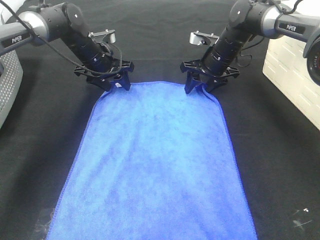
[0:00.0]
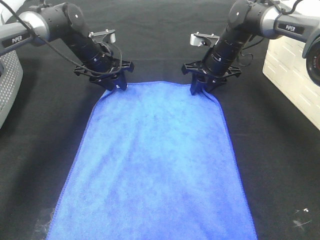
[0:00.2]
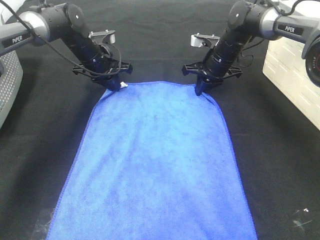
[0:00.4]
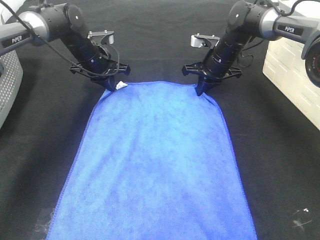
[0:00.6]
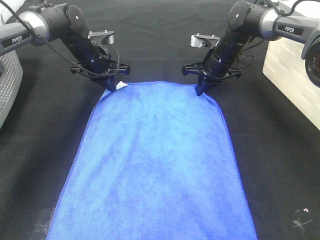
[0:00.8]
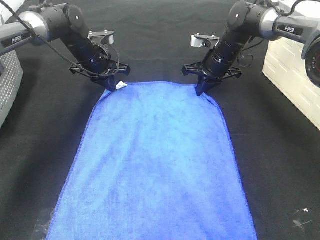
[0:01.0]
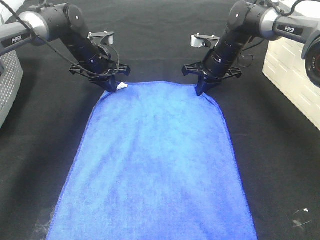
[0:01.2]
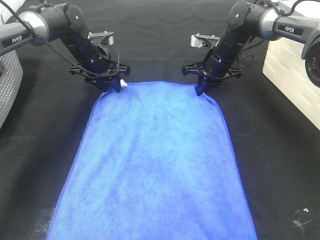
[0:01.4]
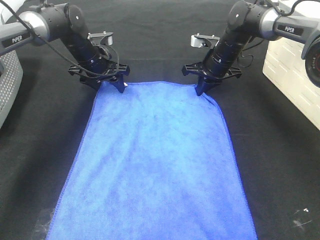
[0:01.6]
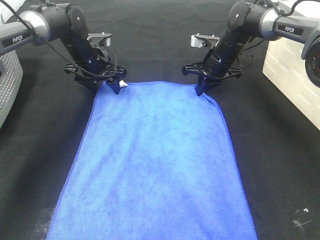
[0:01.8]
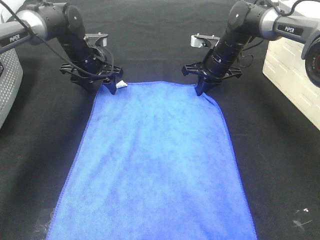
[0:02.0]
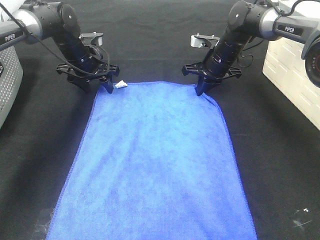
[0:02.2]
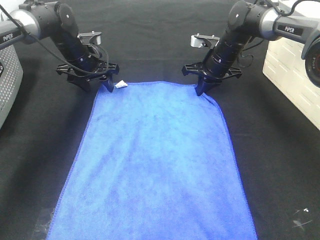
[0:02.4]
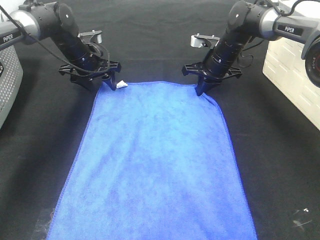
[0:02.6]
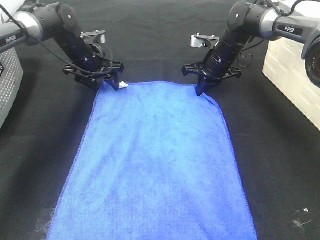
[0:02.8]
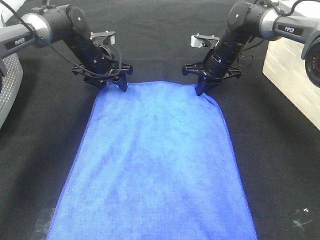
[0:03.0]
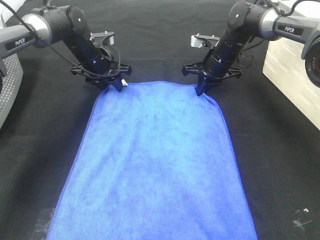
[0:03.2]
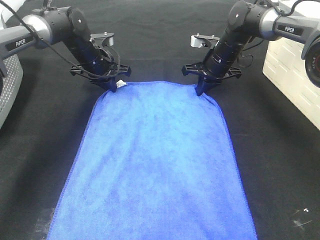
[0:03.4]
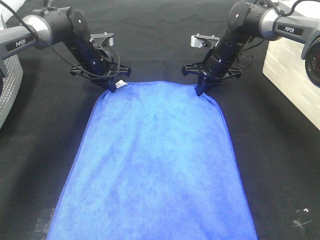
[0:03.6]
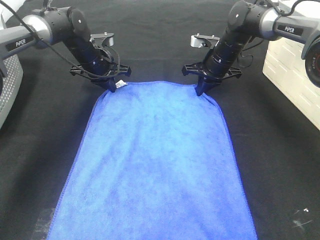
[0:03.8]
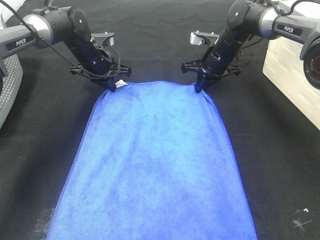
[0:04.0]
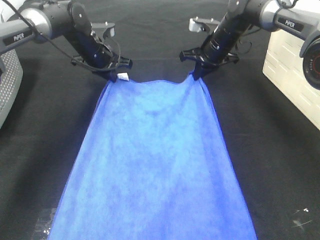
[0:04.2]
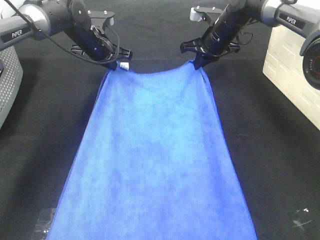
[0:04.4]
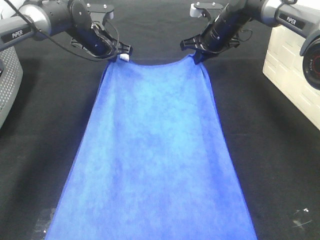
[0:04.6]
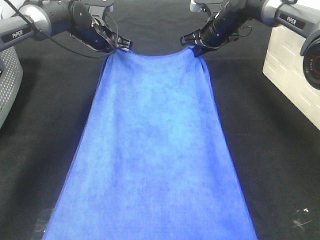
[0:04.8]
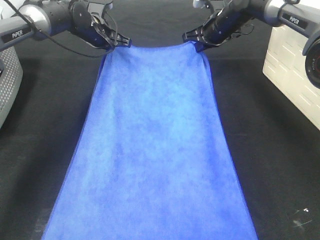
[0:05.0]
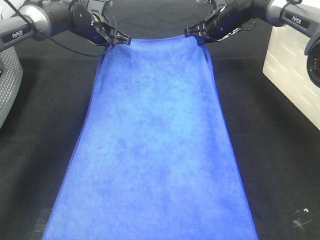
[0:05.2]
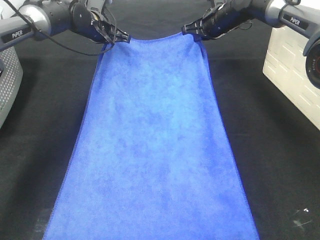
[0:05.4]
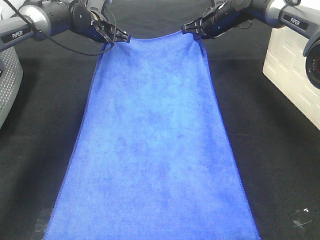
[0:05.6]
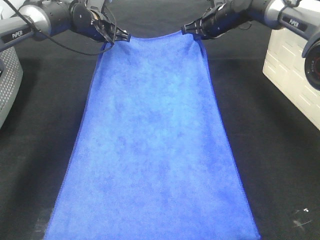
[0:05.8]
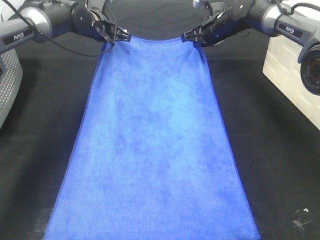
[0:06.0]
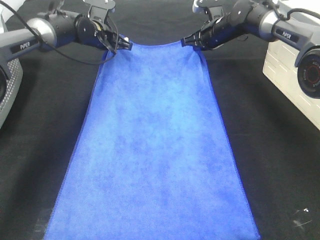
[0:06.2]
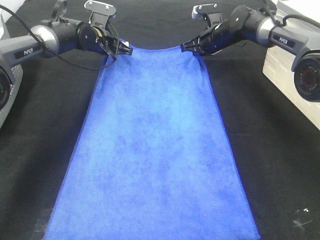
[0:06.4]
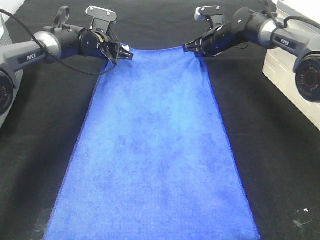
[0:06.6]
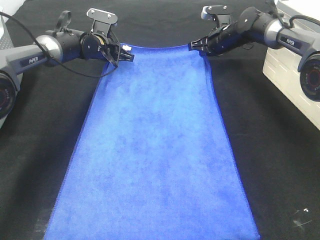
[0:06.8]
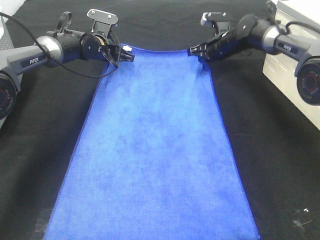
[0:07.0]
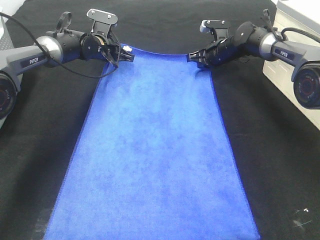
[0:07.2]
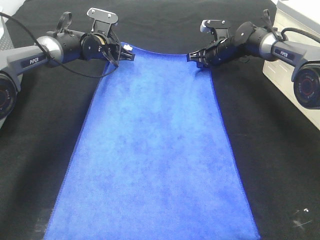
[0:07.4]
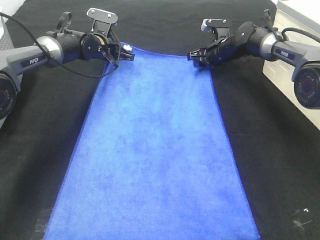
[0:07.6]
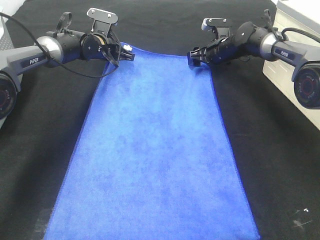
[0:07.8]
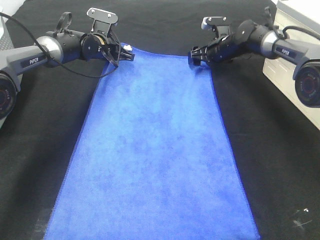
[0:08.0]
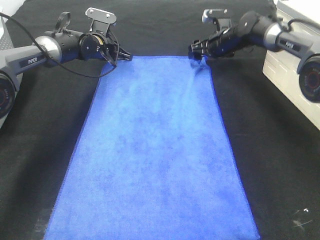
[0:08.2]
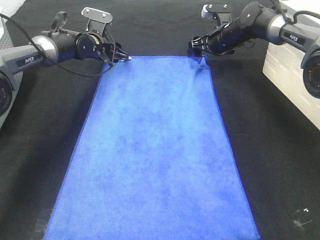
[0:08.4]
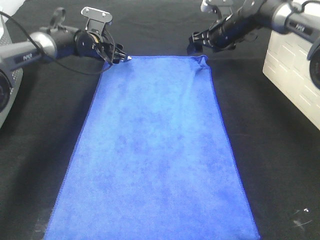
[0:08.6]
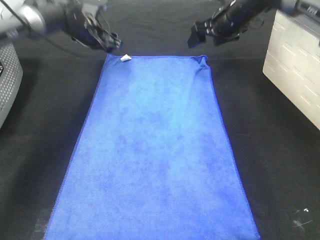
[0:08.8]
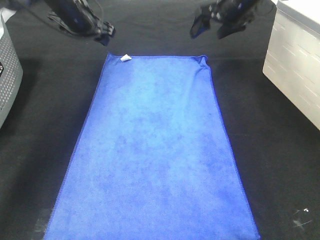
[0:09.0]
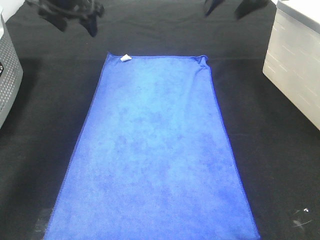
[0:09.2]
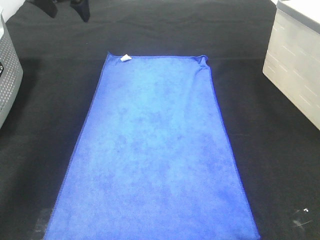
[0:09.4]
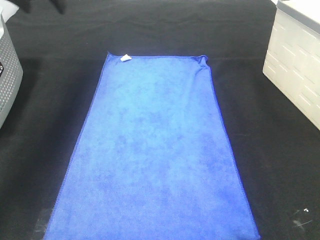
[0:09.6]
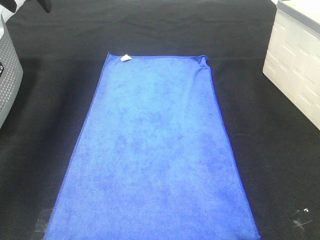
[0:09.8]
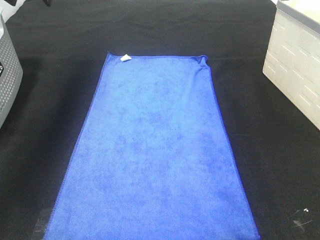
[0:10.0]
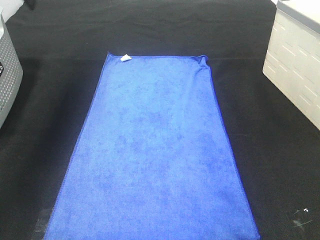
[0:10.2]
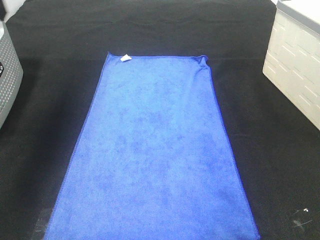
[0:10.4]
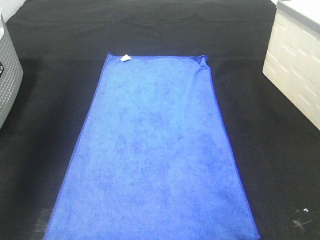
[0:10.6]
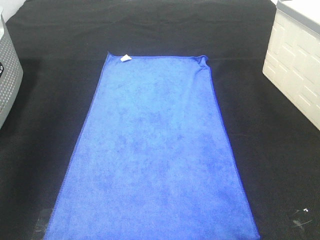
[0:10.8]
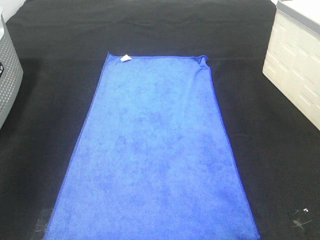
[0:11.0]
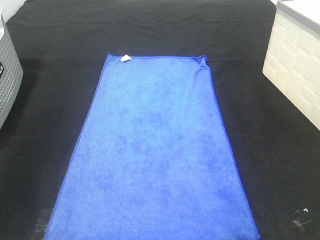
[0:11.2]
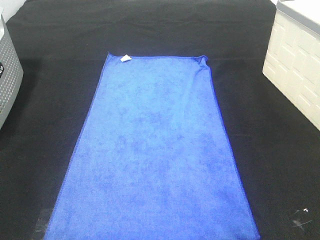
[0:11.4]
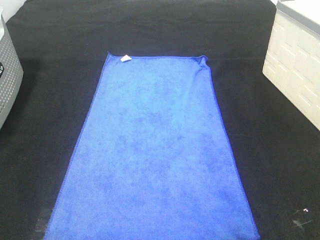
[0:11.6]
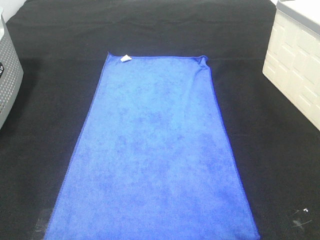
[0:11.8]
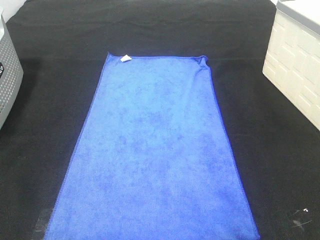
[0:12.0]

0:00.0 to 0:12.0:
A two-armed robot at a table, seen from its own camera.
Task of the whole recording: Remove the towel and place it.
0:00.0 to 0:01.6: The left gripper closes, then reopens; the right gripper closes its fingers.
0:01.6 to 0:03.0: The grippers move only a little.
0:03.0 to 0:04.4: The left gripper closes. The right gripper ends up roughly 5 cm from where it was.
0:06.0 to 0:07.6: The grippers both shift downward by about 5 cm. The right gripper opens up.
0:07.6 to 0:09.0: The two grippers go some 15 cm upward. The right gripper opens its fingers, while the left gripper opens up.
0:09.0 to 0:10.4: The right gripper heads backward, upward and to the right, covering some 35 cm; the left gripper goes approximately 25 cm backward, upward and to the left.
0:10.4 to 0:12.0: The left gripper shifts roughly 30 cm backward; the right gripper is displaced backward and downward by roughly 30 cm.

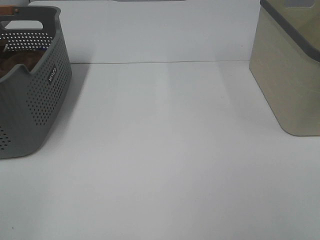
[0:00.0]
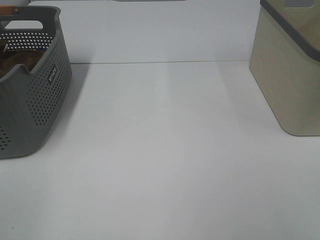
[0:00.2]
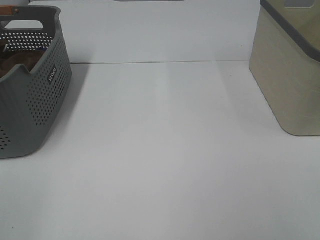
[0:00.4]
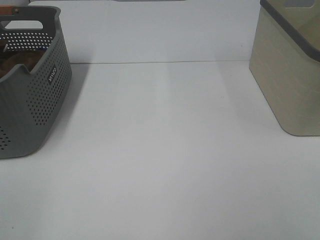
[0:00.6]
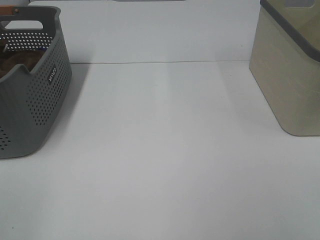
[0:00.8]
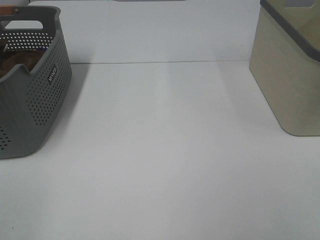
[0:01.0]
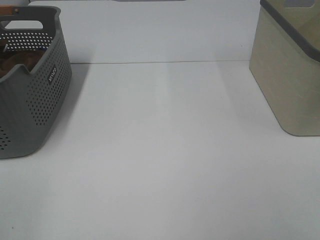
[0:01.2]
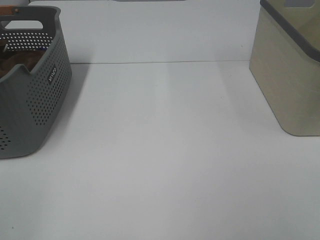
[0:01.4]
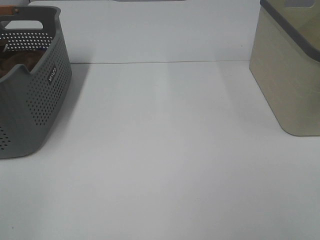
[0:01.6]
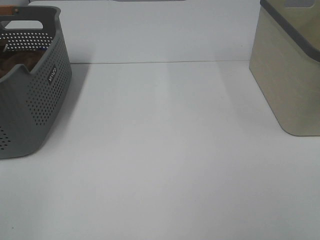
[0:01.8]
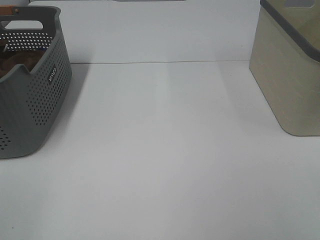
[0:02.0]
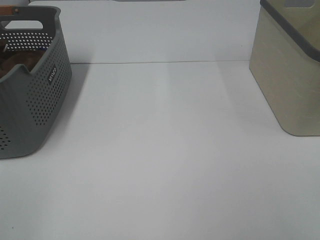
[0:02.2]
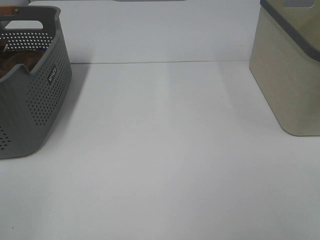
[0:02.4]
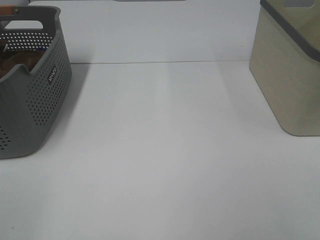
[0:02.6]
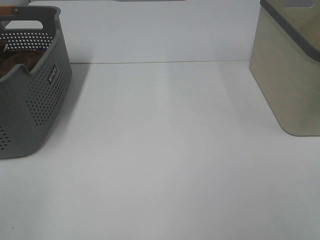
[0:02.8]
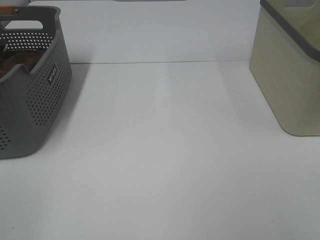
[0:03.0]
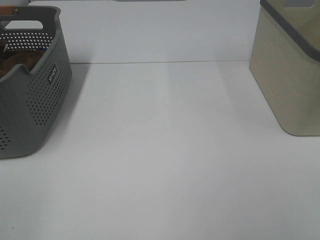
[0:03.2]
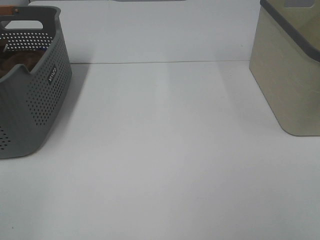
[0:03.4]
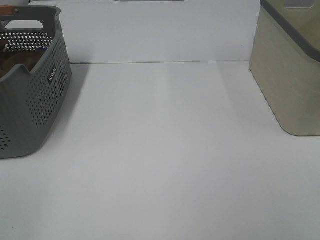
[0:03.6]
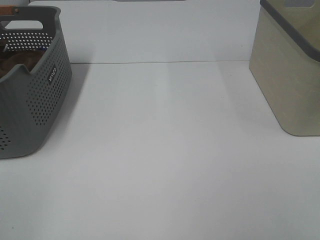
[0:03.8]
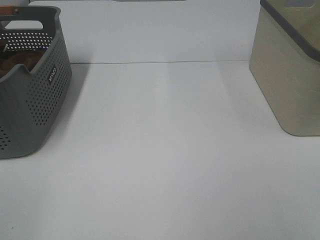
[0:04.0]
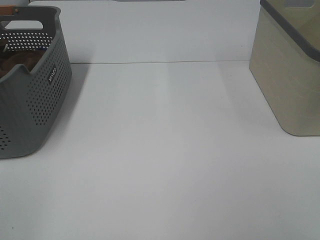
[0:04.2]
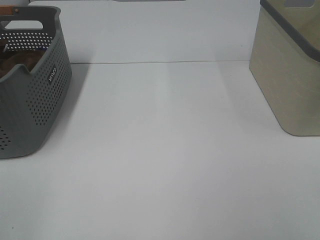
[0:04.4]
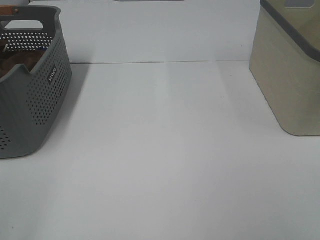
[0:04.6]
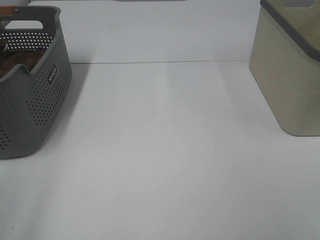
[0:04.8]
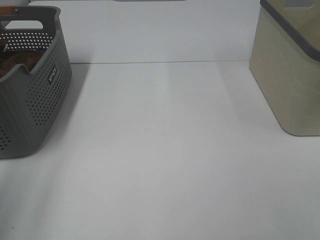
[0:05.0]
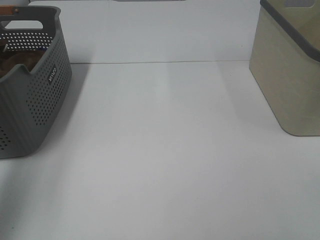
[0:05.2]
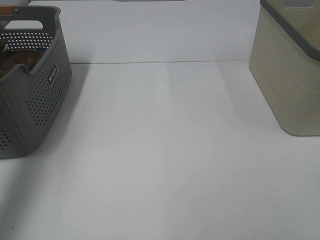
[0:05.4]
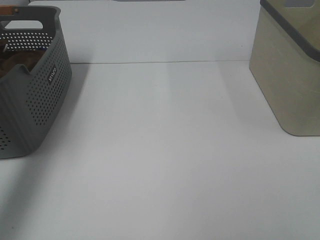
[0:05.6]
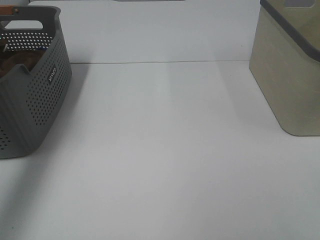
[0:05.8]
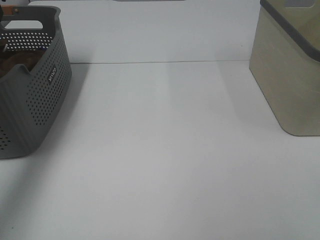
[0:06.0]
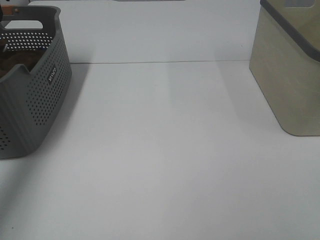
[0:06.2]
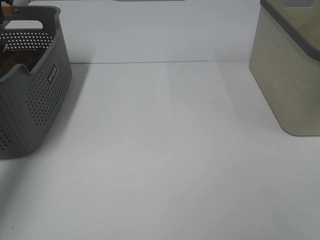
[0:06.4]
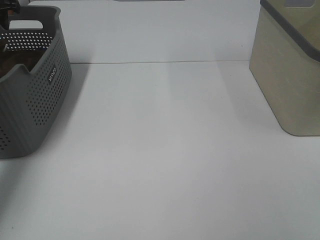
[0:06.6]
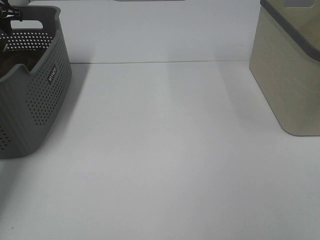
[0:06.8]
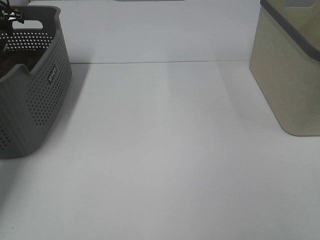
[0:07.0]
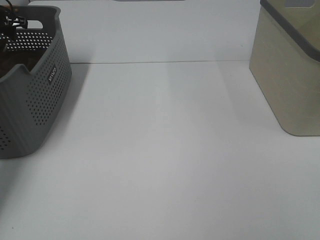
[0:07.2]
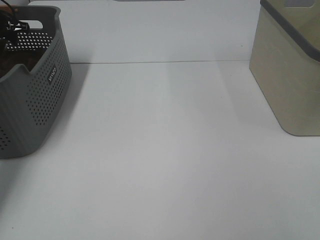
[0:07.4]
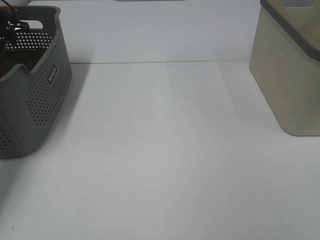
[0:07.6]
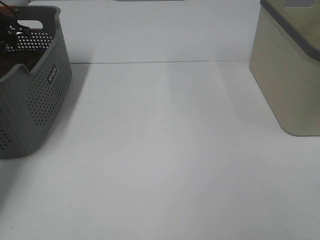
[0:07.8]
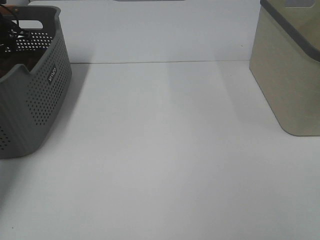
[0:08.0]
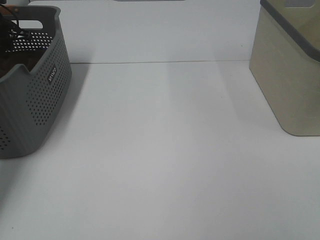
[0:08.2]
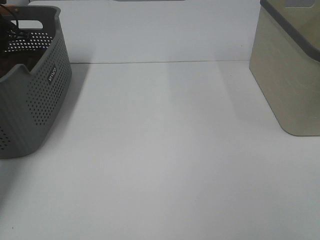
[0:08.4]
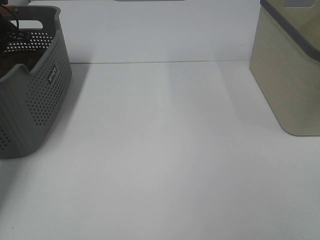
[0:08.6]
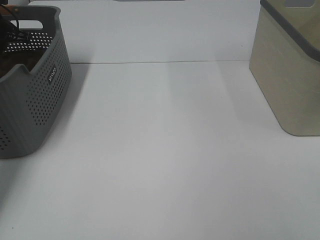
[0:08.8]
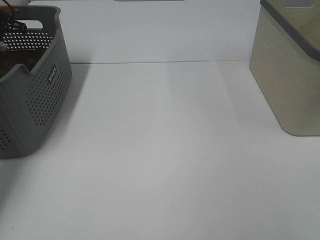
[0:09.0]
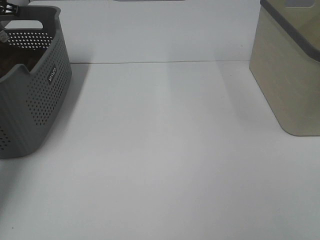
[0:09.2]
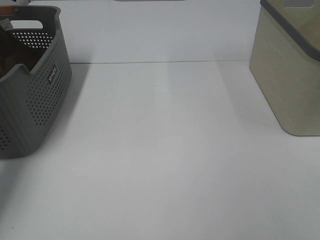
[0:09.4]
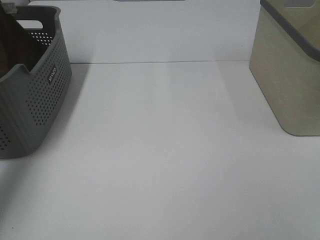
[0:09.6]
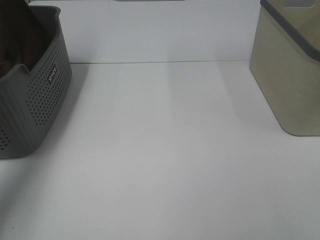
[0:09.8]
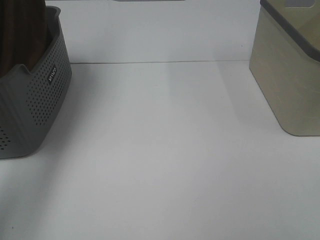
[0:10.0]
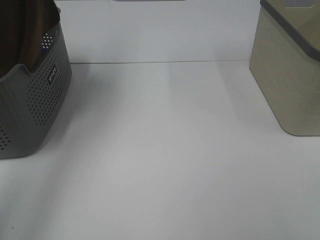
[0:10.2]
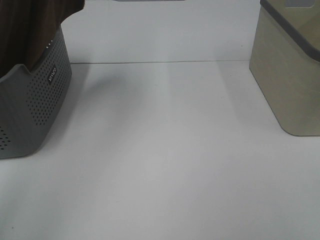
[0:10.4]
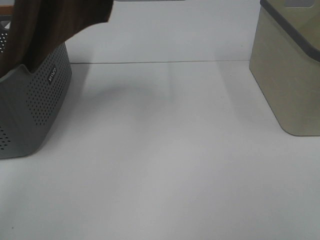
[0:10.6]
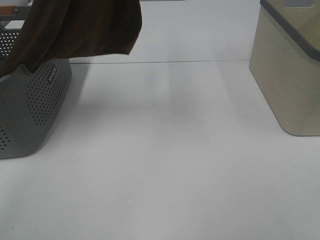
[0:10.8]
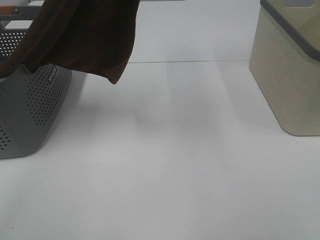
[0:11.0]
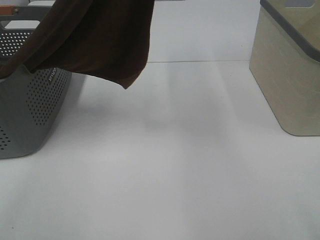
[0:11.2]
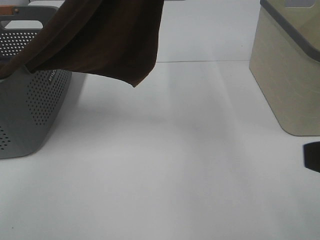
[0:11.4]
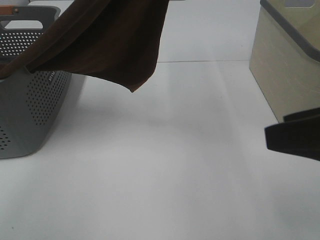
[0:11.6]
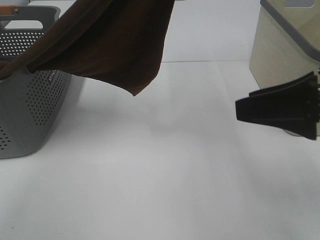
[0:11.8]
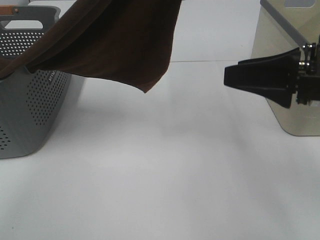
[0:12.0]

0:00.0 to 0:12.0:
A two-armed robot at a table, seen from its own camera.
Task of the whole recording: Remove the towel and place it.
0:00.0 to 0:04.4: Both grippers stay put.
0:04.4 to 0:06.0: The left gripper travels forward by roughly 40 cm.
0:06.0 to 0:07.6: The left gripper moves forward, downward and to the left, approximately 20 cm.
0:09.0 to 0:10.4: The left gripper goes some 40 cm upward, to the right and backward.
0:10.4 to 0:12.0: The left gripper shifts about 15 cm to the right and backward; the right gripper moves forward, some 20 cm.
